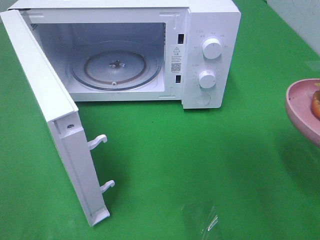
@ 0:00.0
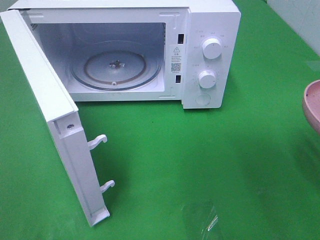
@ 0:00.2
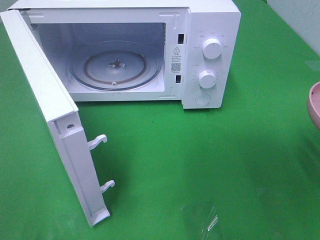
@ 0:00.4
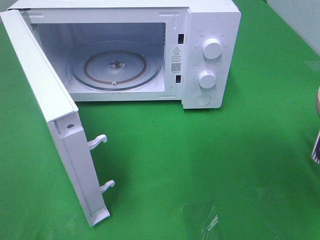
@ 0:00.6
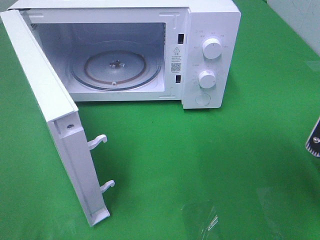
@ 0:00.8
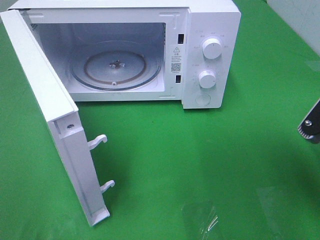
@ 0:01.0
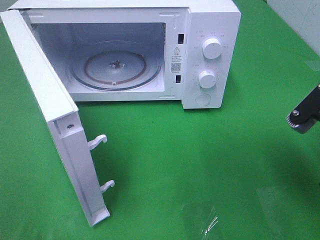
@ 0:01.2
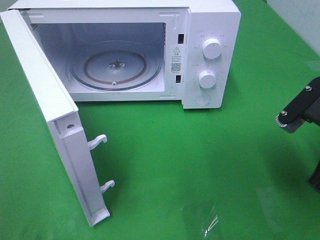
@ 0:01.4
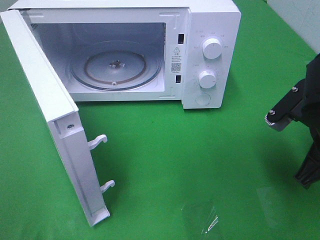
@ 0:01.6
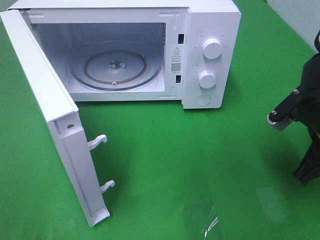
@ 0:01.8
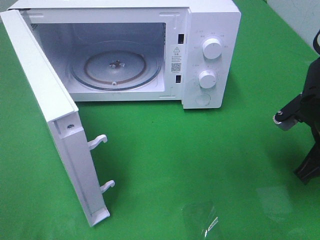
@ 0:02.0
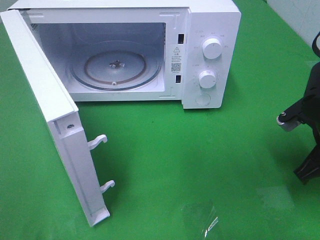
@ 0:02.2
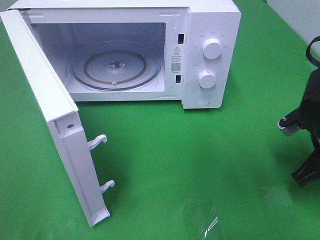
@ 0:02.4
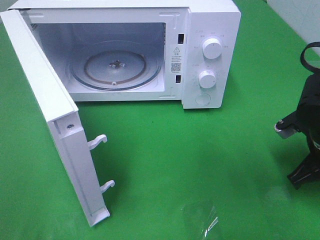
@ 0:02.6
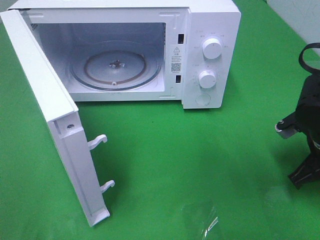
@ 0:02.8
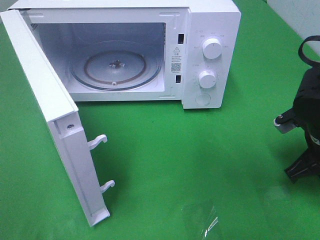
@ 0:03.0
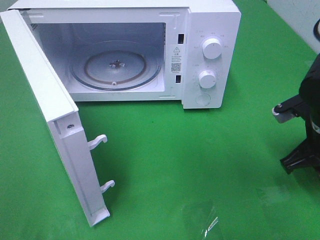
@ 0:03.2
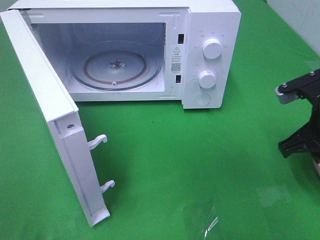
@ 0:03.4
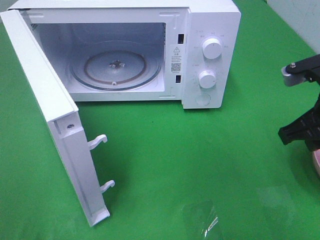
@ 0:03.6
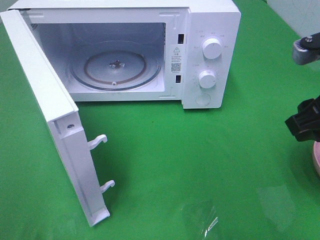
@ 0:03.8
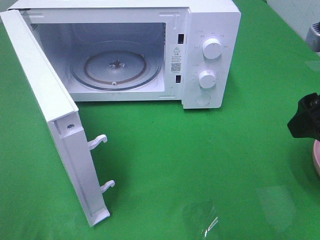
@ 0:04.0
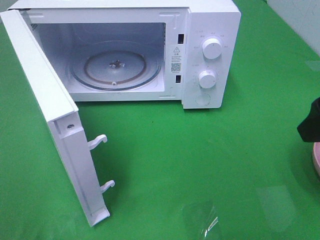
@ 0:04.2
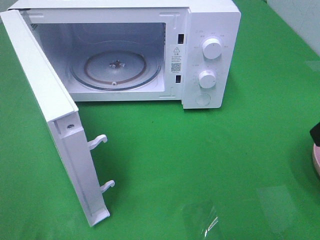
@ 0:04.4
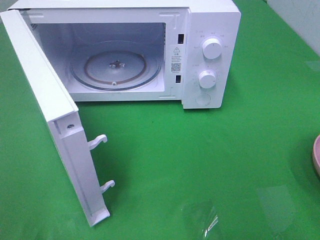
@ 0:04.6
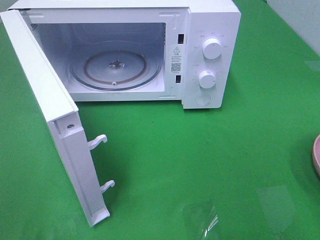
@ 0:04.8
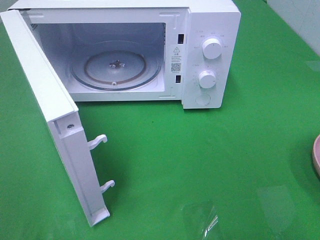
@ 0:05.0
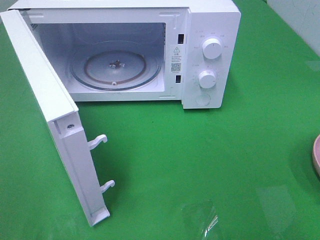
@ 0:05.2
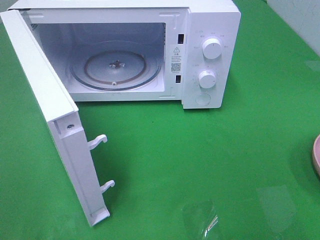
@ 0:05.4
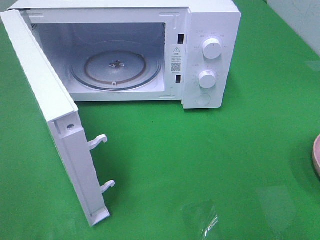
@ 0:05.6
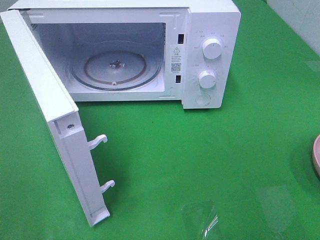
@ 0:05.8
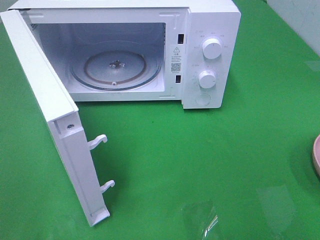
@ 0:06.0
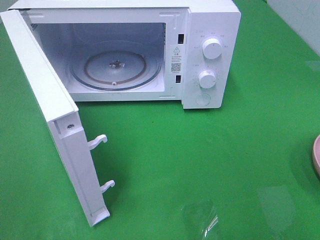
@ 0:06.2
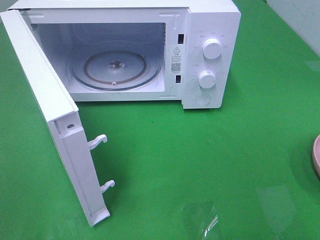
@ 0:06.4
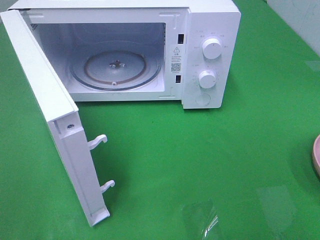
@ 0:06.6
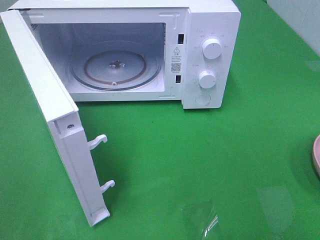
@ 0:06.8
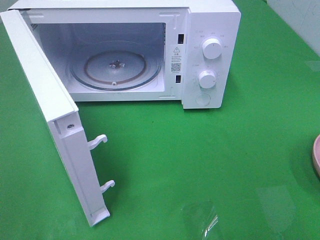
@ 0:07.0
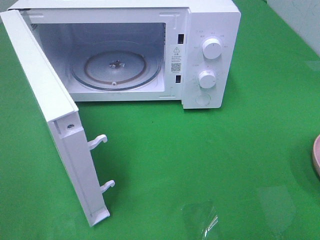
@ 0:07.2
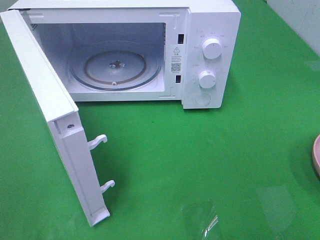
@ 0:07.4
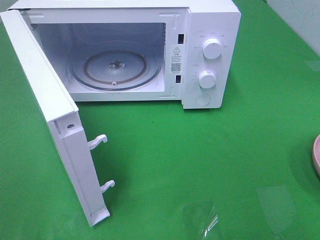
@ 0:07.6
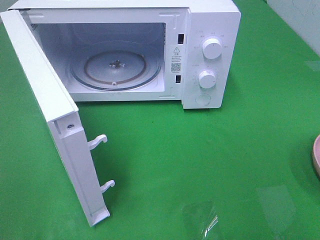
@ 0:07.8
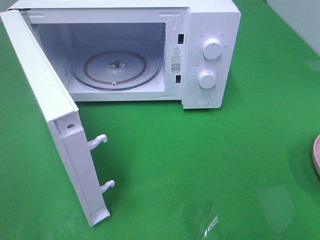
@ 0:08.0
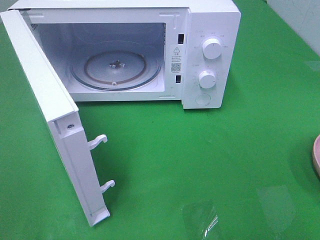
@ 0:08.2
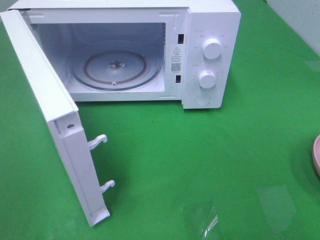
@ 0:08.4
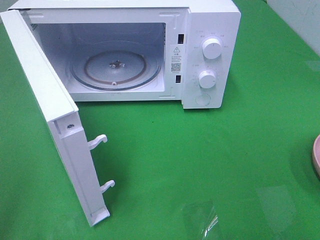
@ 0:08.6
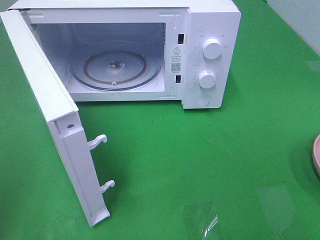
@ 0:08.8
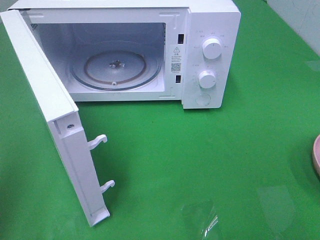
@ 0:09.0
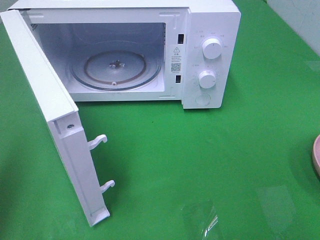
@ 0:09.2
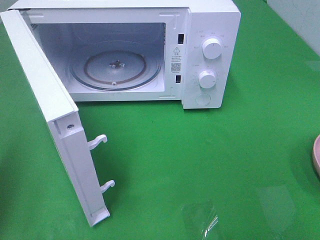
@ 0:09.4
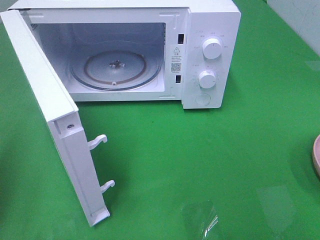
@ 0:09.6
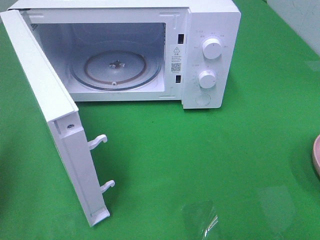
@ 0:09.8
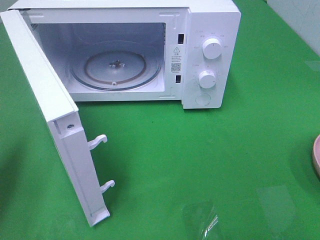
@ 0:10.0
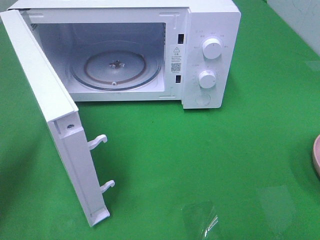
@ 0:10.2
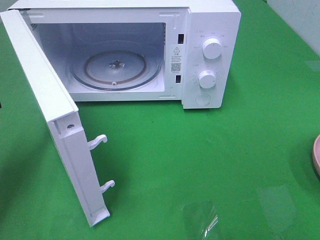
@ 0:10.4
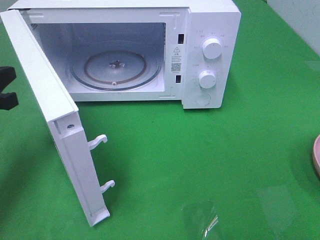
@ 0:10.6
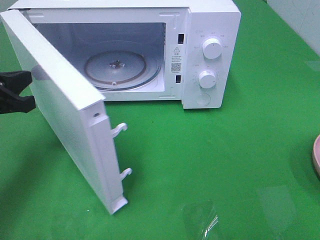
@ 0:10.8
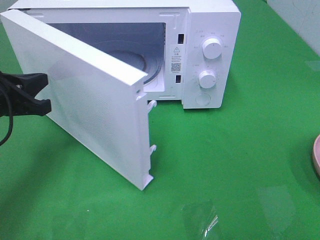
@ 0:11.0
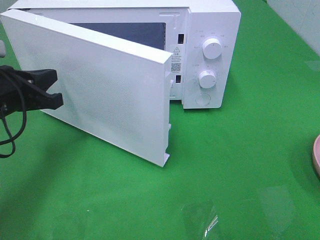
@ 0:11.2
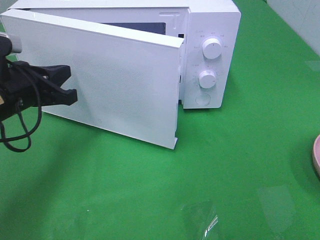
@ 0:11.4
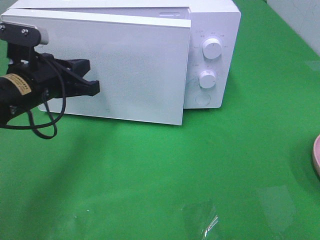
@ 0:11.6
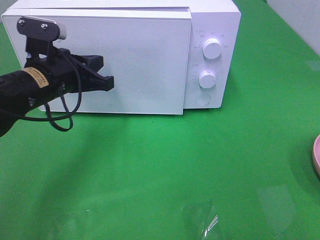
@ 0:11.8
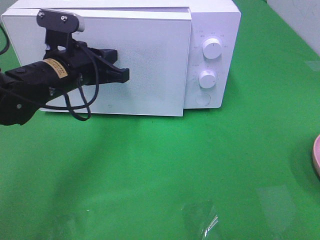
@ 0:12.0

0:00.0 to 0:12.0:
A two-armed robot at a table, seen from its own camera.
Task of the whole recording: Heat the burger.
Step, 0:00.0 to 0:03.2: Right hand: place the plate on the table.
0:00.0 to 0:01.6: The right gripper moves forward and downward, about 10 cm.
0:01.6 to 0:03.0: The right gripper is displaced downward by approximately 5 cm.
0:03.0 to 0:04.4: The right gripper travels upward and backward by some 20 cm, and opens its fingers.
0:06.0 to 0:07.6: Neither gripper changes place.
0:09.0 to 0:10.4: The left gripper shifts some 20 cm downward and forward.
0:10.4 to 0:12.0: The left gripper travels to the right and forward by approximately 20 cm.

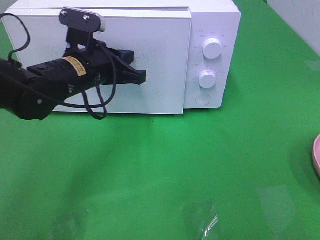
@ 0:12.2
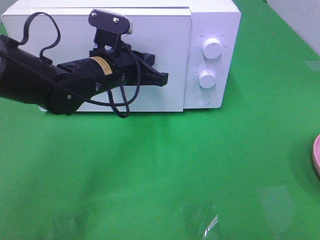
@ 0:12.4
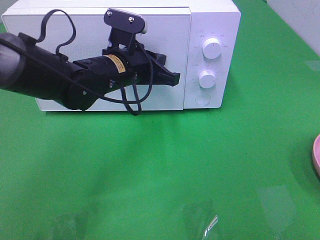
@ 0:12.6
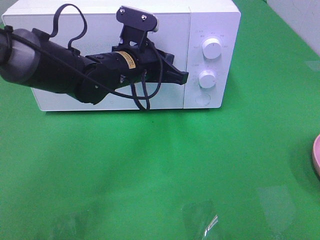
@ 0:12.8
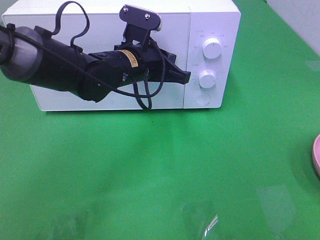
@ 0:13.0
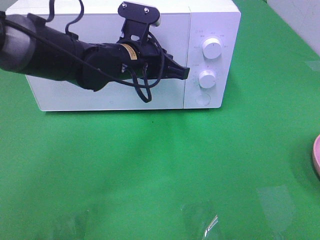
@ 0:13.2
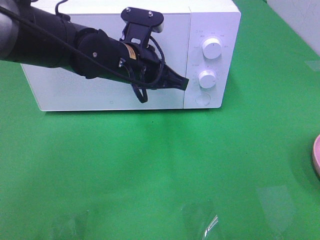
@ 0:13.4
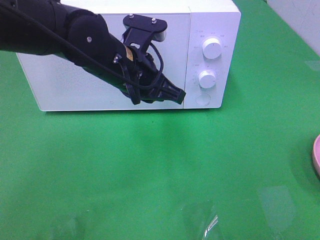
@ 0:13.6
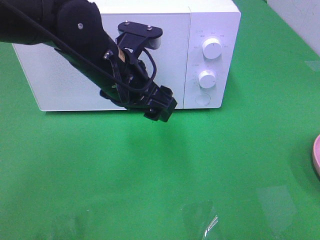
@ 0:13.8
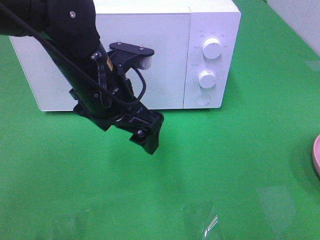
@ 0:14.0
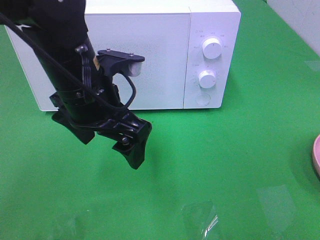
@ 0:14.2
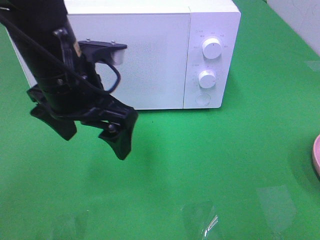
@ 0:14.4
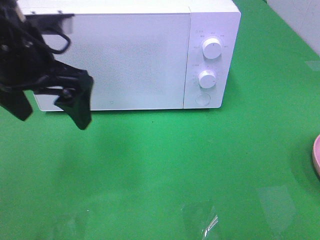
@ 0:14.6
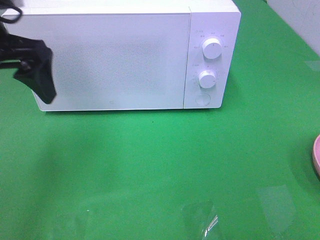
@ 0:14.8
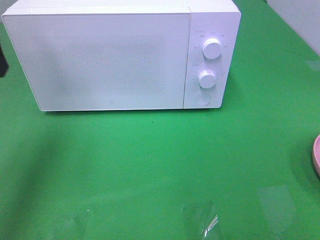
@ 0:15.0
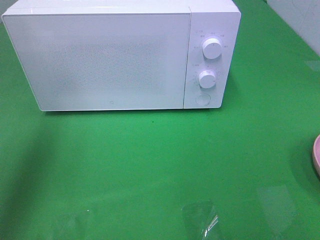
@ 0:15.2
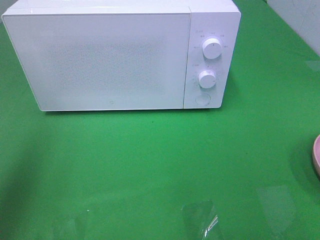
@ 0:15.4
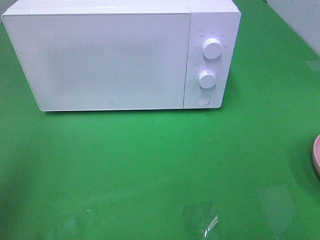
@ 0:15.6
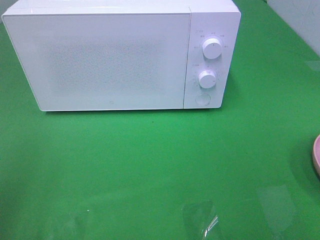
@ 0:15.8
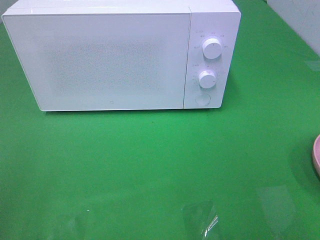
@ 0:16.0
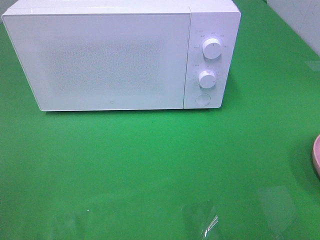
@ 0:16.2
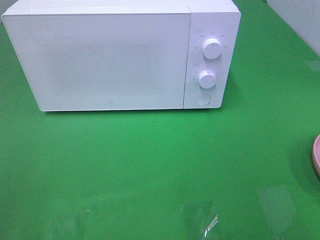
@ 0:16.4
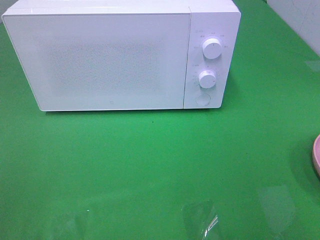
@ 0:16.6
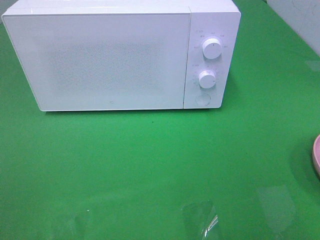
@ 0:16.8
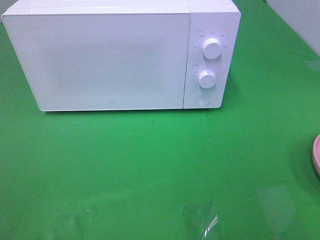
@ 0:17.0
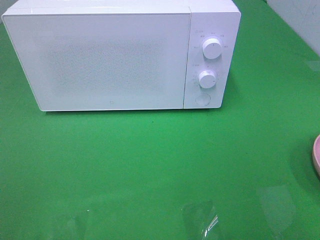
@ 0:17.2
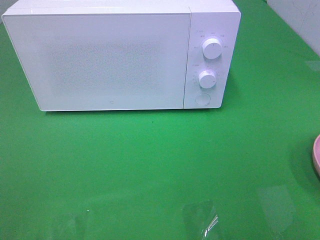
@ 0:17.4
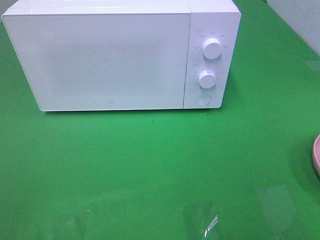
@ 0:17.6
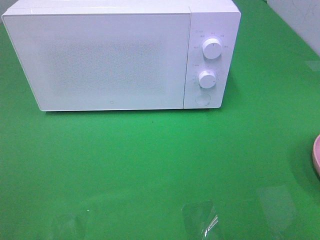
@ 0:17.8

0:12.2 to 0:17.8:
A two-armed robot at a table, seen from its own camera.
Task of the whole recording: Heat the burger.
0:12.2 to 0:13.6: The left gripper shifts roughly 5 cm to the right.
0:13.6 to 0:15.0: The left gripper travels to the left and upward by approximately 25 cm, and opens up.
0:15.0 to 0:16.4: The left gripper goes approximately 25 cm backward.
